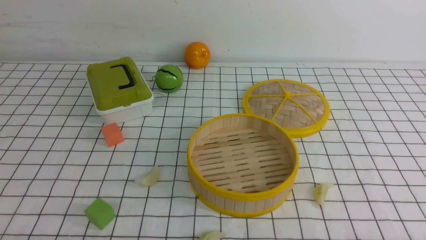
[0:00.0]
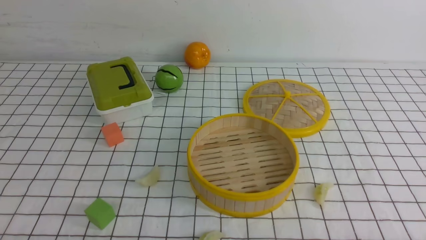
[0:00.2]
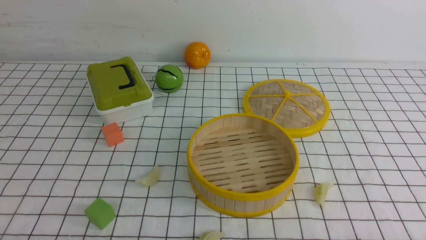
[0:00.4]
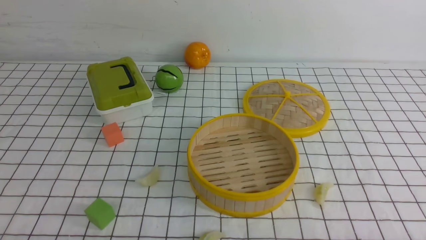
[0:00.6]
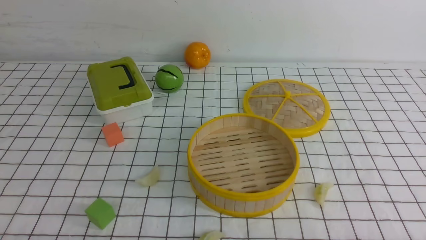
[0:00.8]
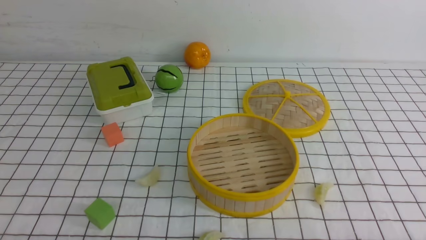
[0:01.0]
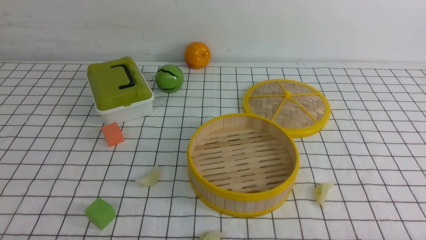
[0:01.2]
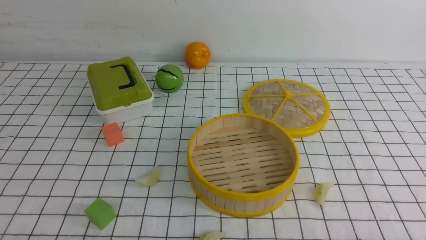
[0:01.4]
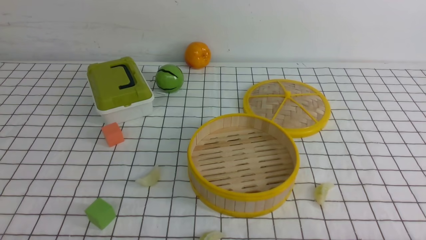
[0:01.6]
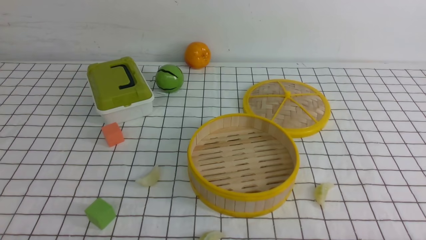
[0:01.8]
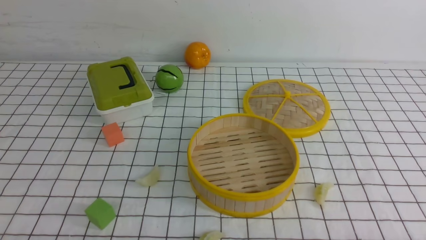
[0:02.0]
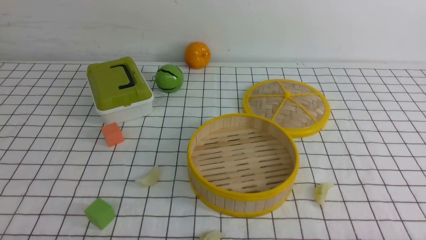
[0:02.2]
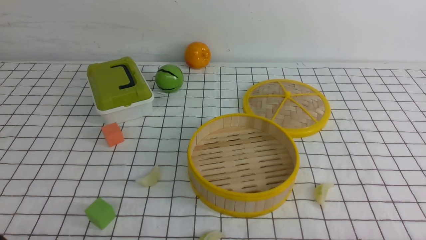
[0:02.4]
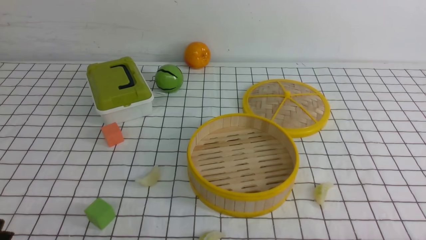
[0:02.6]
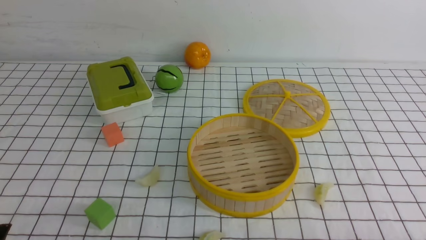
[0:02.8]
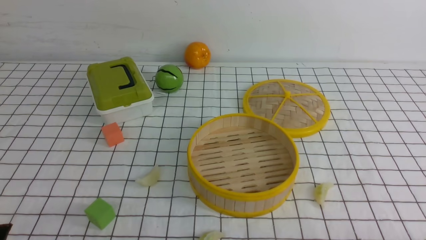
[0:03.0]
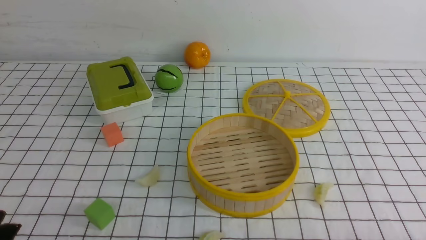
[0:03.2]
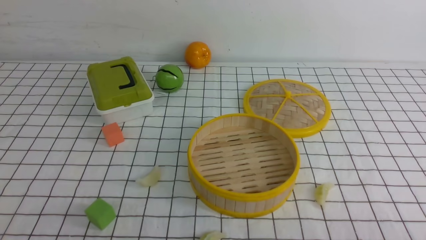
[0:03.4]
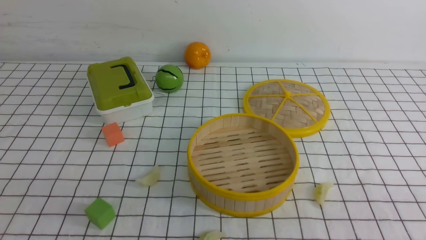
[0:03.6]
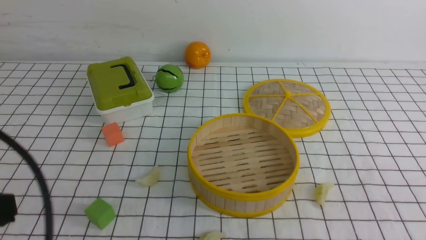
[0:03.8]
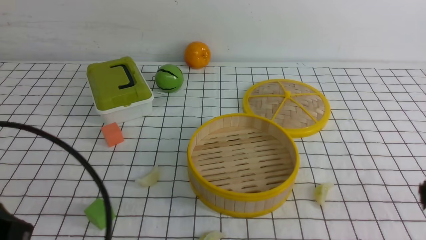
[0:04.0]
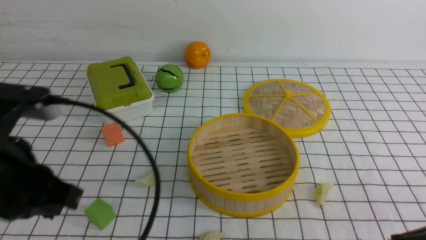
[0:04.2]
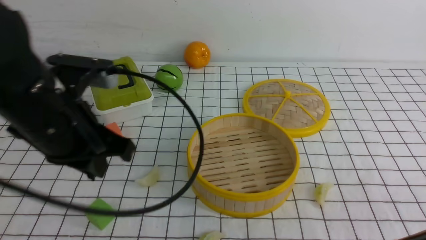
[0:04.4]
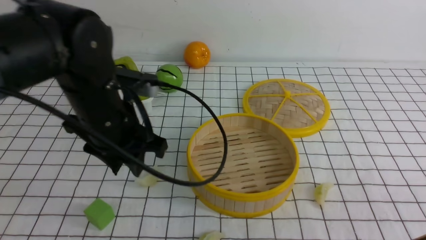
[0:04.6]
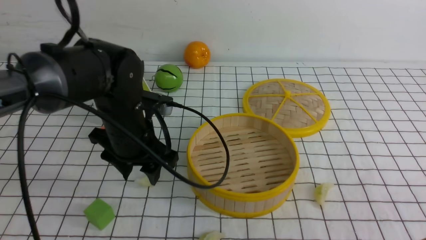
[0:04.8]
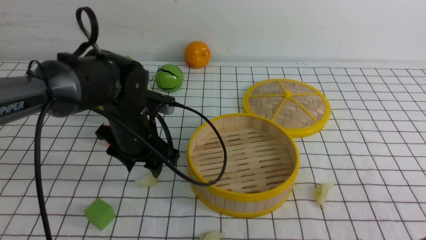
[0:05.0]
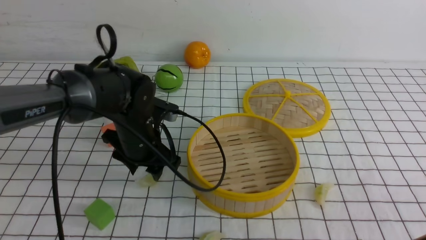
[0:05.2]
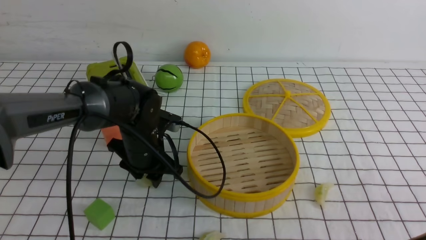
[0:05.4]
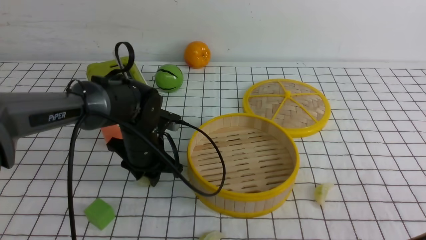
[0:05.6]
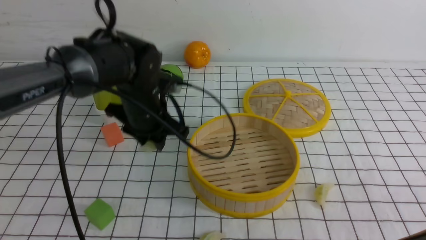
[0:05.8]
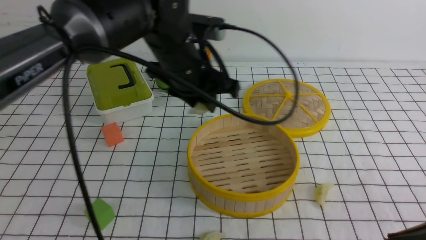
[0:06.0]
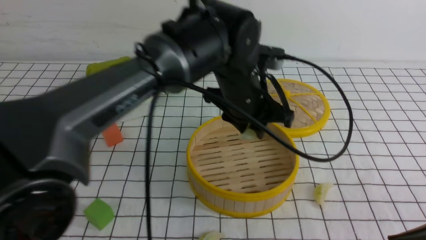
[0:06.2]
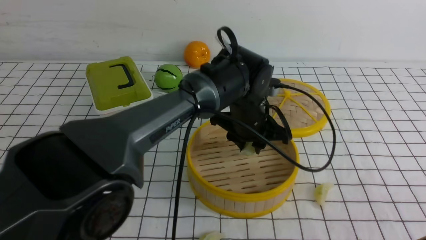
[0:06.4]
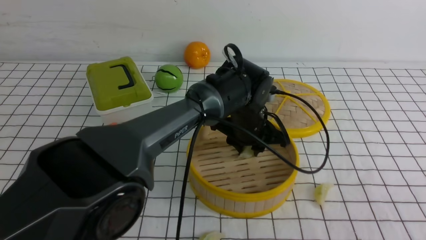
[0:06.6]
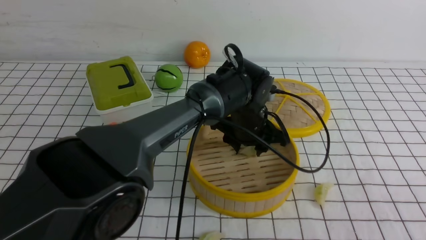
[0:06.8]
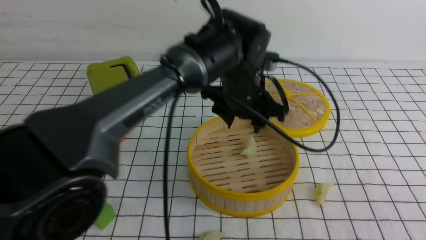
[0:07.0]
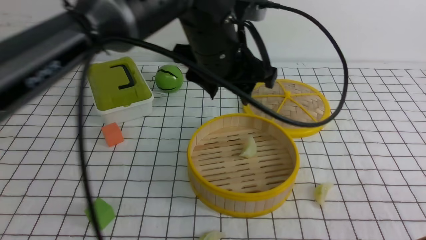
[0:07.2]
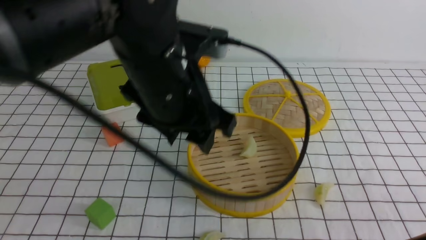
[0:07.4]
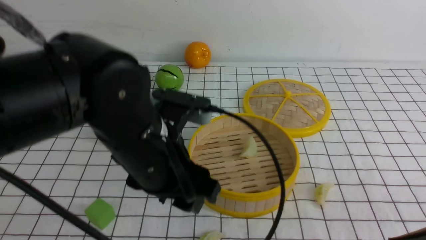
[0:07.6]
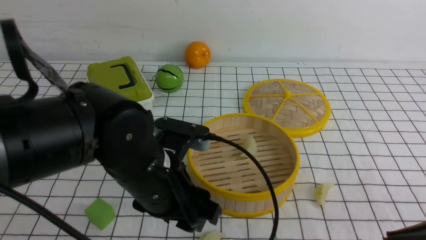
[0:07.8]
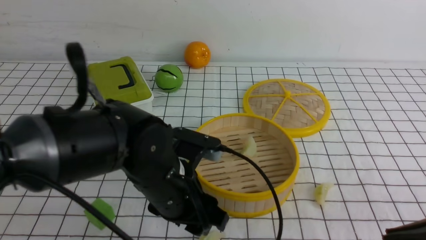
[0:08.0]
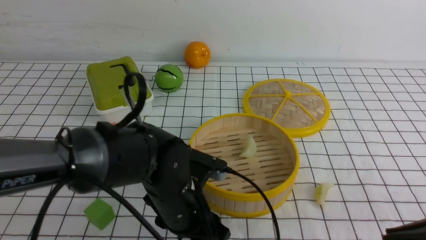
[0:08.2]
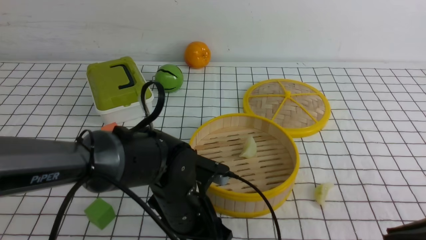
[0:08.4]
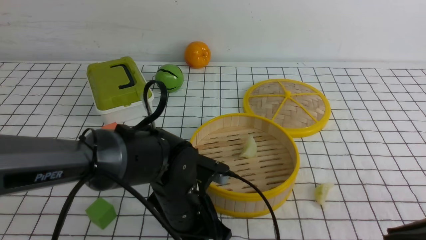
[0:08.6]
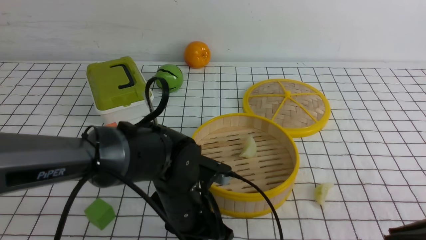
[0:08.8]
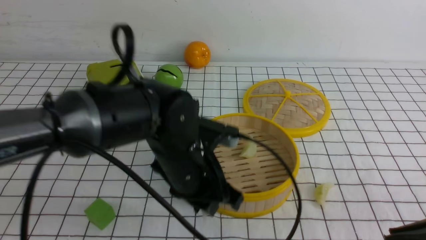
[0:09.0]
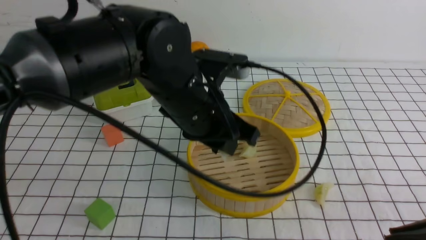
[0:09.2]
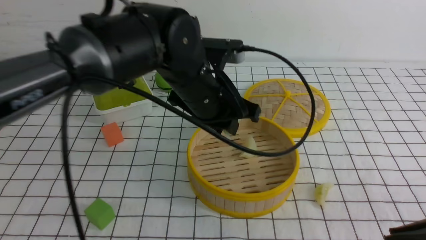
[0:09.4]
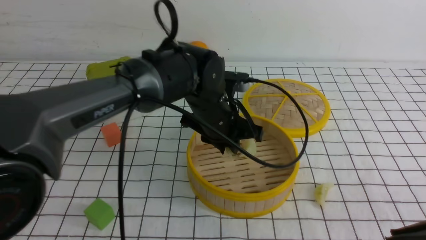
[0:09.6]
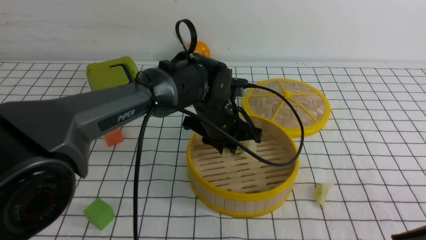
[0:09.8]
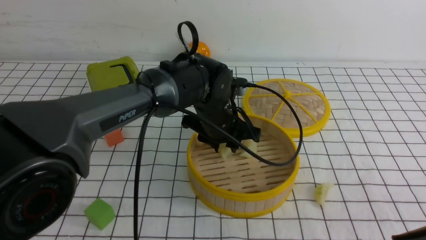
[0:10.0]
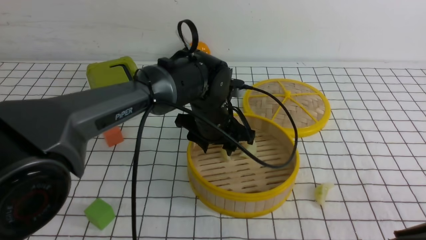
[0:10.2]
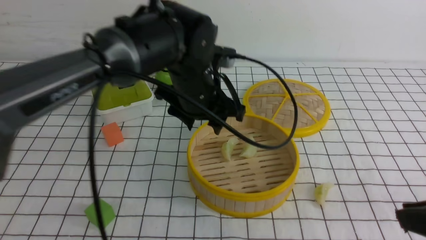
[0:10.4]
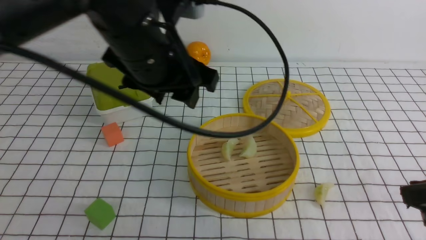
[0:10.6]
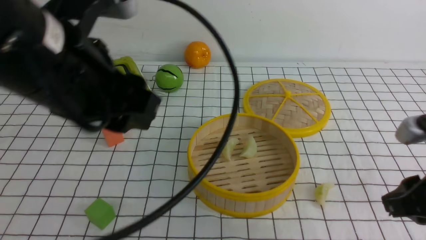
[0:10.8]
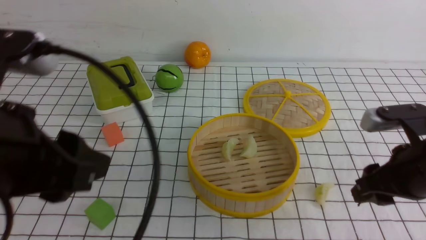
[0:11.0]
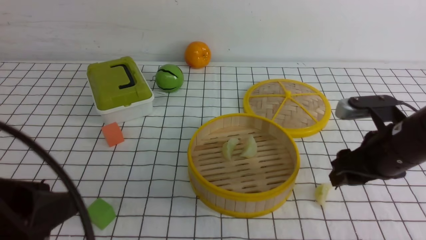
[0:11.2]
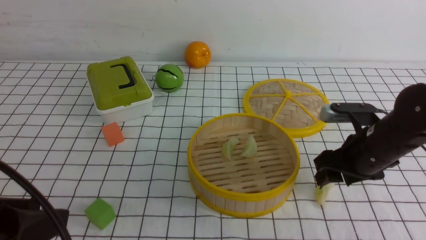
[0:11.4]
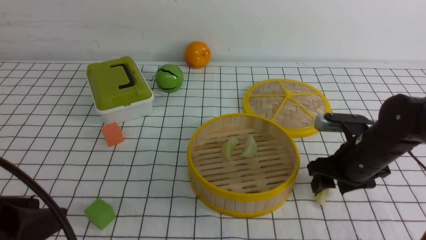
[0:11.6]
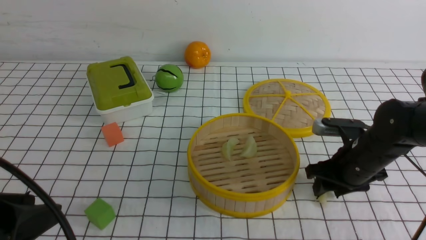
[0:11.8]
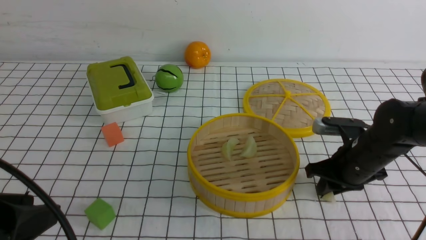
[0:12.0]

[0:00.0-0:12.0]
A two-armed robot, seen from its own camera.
Task of the whole recording: put the dumplings into the steamer on the table with the white tablecloth.
Step, 0:00.0 to 0:05.4: use the left arm to grab a dumpling.
Step, 0:05.8 to 0:07.0: use the left arm to put the dumpling into the steamer.
Step, 0:07.2 to 0:08.4: use the left arm to grab a dumpling.
Step, 0:08.6 to 0:10.2: use the left arm to put the dumpling into the steamer.
Step, 0:10.4 to 0:12.0: use the right arm to grab a dumpling.
0:03.0 to 0:04.4: The right gripper is displaced upward and forward by about 15 cm, and closes, while the left gripper is displaced forward, upward and to the right by roughly 25 cm, and closes its fingers.
0:04.4 to 0:06.0: The left gripper is displaced forward and to the right by approximately 20 cm, and opens up.
0:06.0 to 0:07.6: The left gripper shifts roughly 10 cm backward, and opens up.
0:07.6 to 0:09.0: The left gripper moves downward, some 10 cm, and closes its fingers.
0:09.0 to 0:10.4: The left gripper heads forward and upward, covering roughly 10 cm, and opens its fingers.
0:10.4 to 0:12.0: The right gripper shifts about 25 cm forward and downward, and opens and closes again. The left gripper shifts approximately 35 cm backward and to the left.

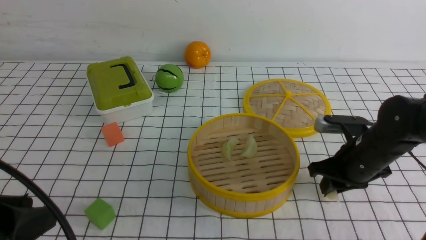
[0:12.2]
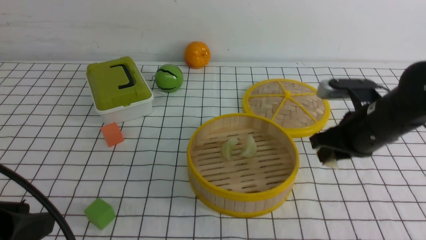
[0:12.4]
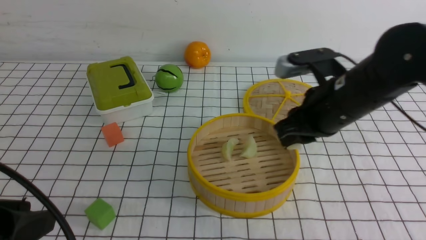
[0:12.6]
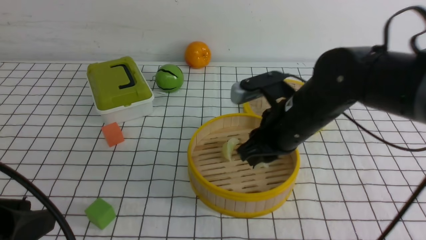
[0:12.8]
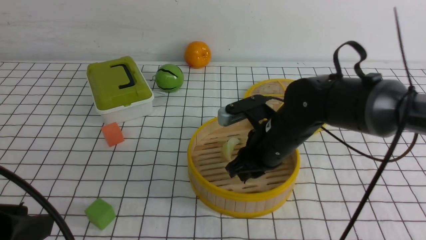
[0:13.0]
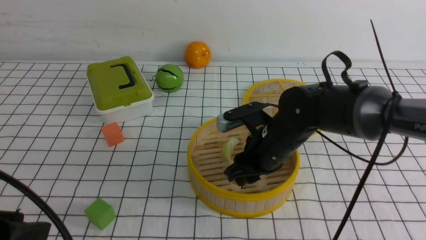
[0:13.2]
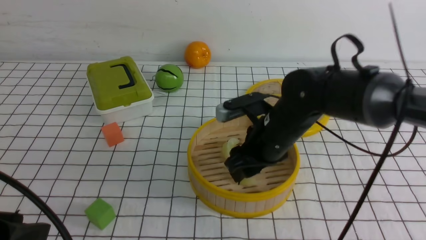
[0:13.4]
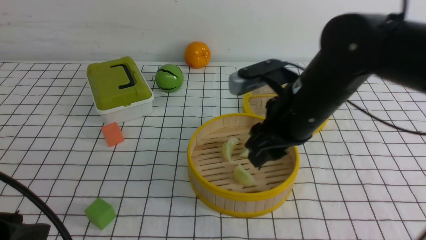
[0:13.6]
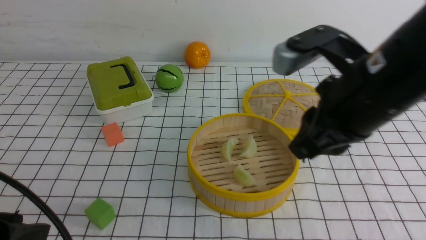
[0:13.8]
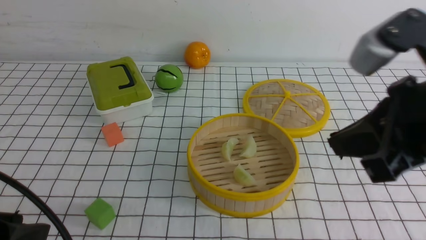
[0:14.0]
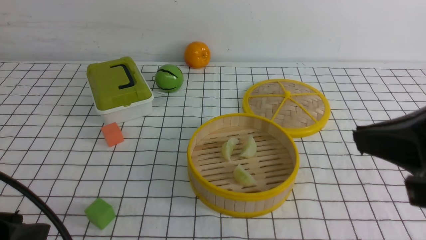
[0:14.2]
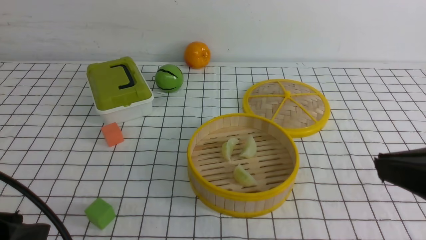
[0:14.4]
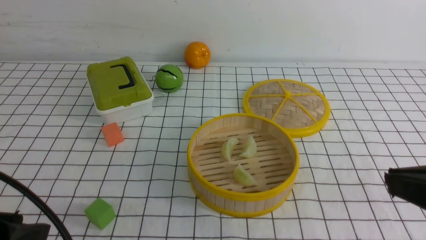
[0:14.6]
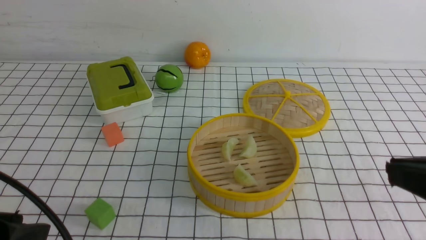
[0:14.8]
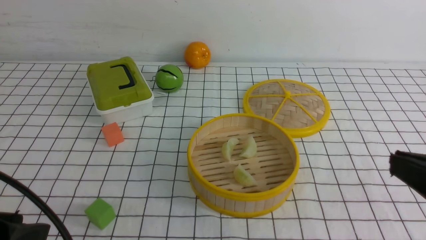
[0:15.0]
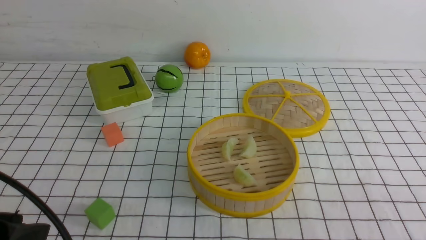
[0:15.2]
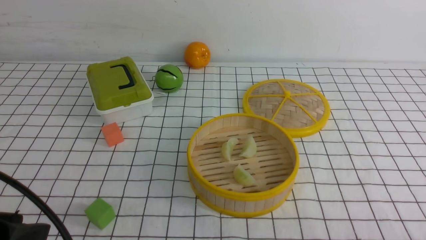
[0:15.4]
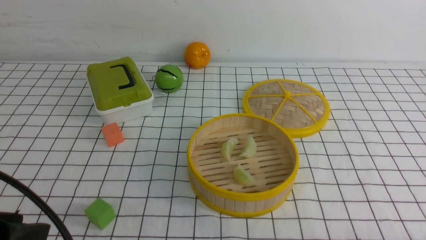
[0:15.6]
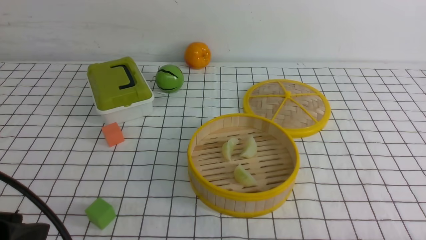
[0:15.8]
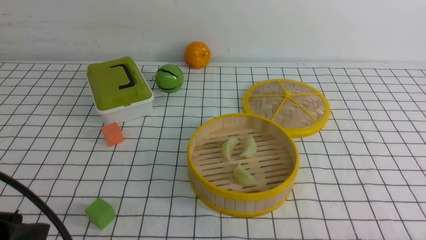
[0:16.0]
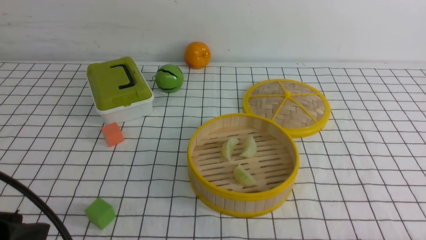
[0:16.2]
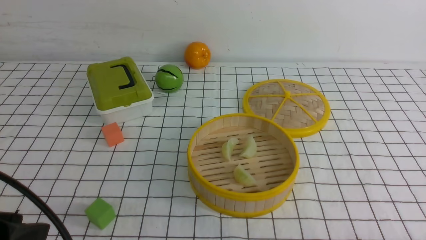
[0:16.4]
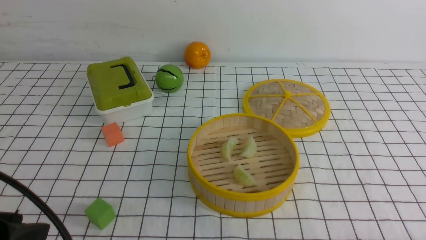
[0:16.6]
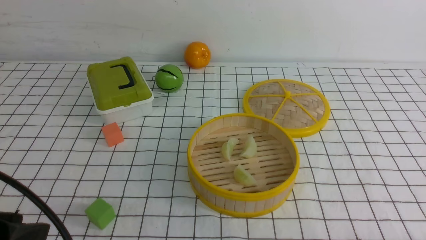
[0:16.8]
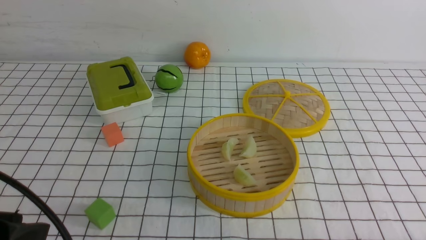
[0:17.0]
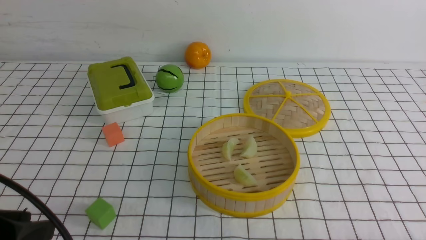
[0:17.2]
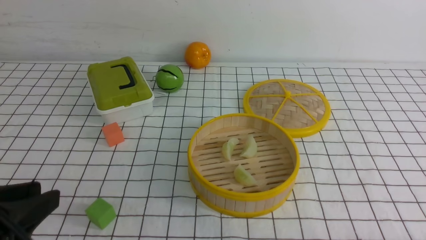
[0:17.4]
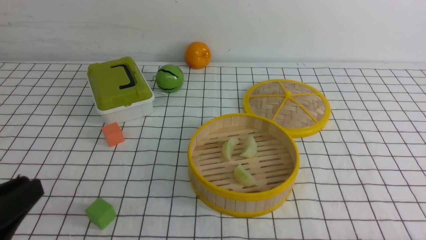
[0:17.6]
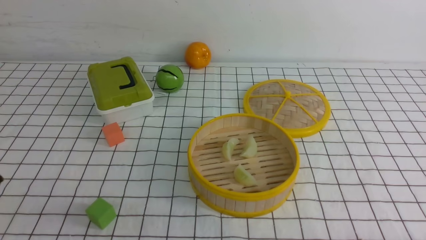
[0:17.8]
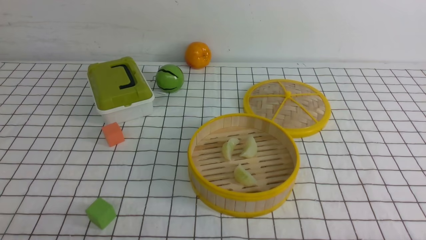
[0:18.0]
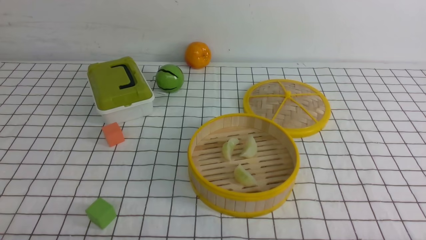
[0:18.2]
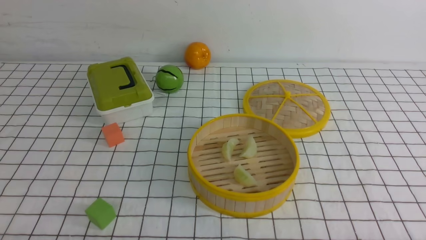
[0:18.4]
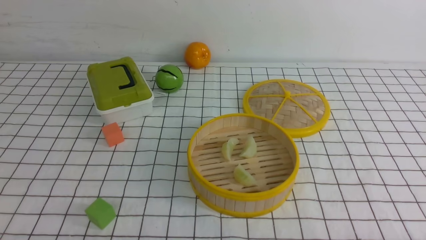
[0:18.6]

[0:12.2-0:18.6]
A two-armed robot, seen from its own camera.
Task of the whole recording: put the dumplings into the steamer on the table with the white tablecloth.
Step, 0:12.2 to 0:13.4: use the right arm to put the dumpling into the steamer.
0:12.2 to 0:13.8: The right gripper goes up and down, some 15 cm each way, reversing 2 times.
0:13.8 to 0:15.4: The right gripper heads backward, to the right and downward, covering about 25 cm, and closes.
0:17.0 to 0:18.6: The left gripper heads downward, covering roughly 15 cm, and closes its fingers.
